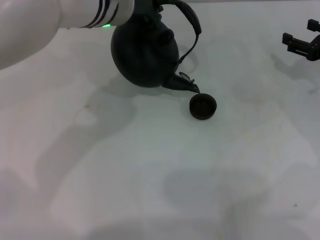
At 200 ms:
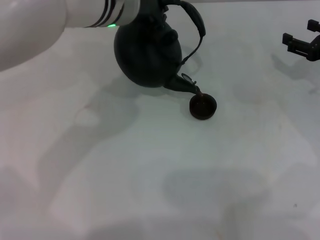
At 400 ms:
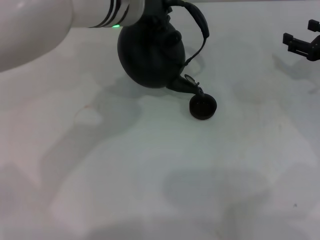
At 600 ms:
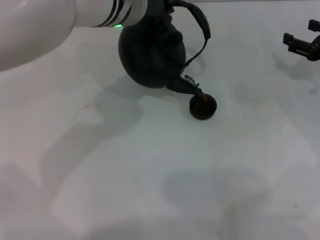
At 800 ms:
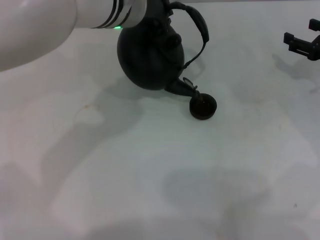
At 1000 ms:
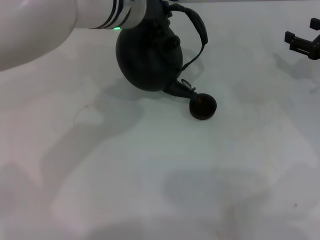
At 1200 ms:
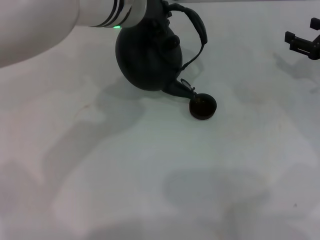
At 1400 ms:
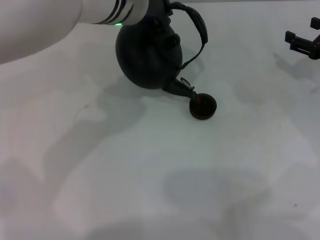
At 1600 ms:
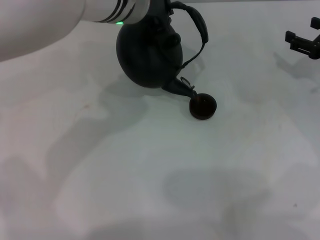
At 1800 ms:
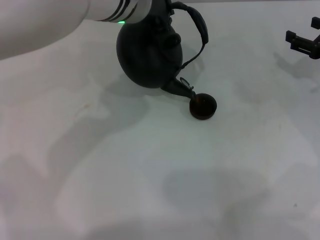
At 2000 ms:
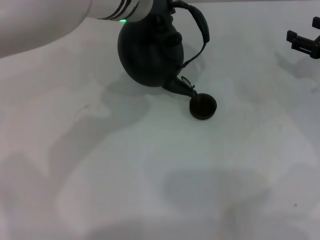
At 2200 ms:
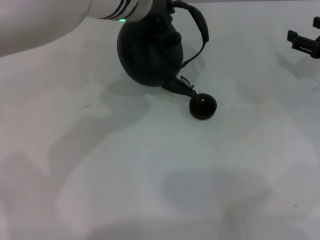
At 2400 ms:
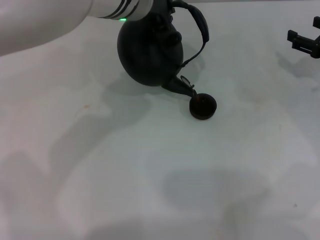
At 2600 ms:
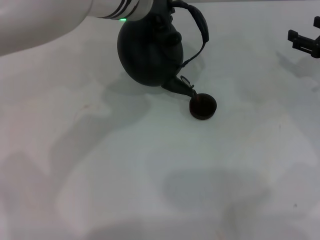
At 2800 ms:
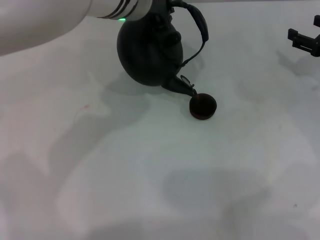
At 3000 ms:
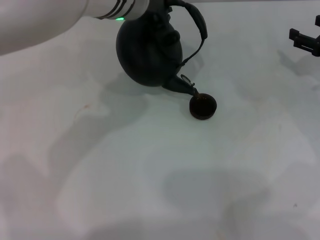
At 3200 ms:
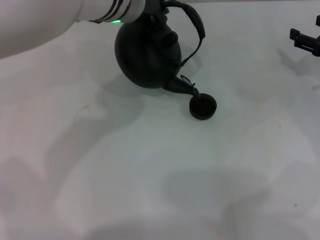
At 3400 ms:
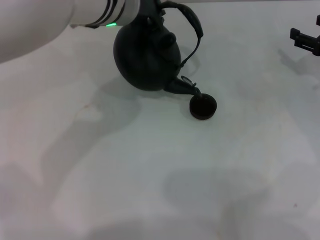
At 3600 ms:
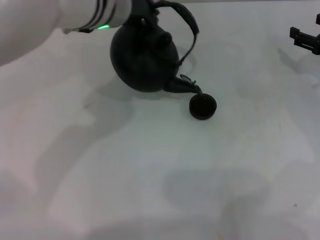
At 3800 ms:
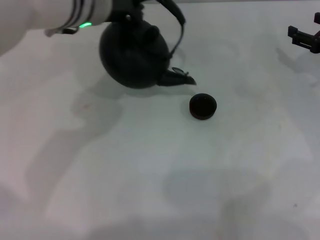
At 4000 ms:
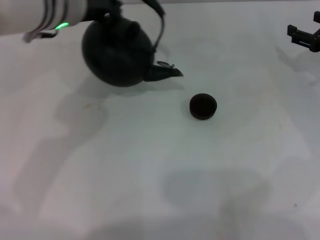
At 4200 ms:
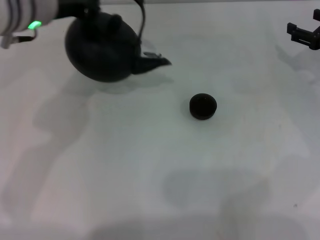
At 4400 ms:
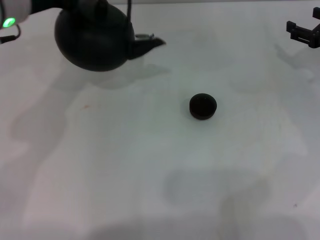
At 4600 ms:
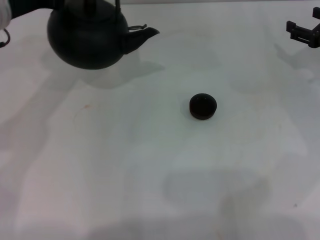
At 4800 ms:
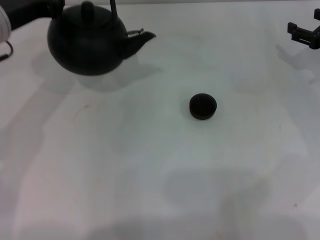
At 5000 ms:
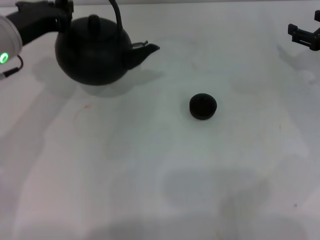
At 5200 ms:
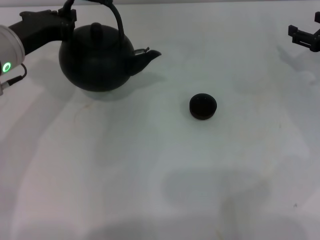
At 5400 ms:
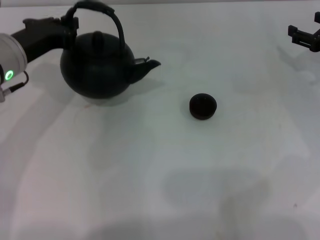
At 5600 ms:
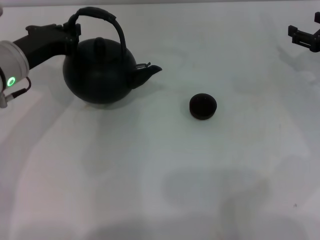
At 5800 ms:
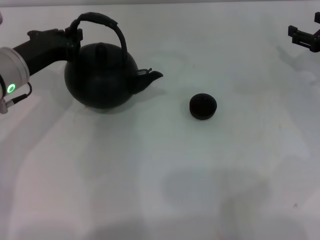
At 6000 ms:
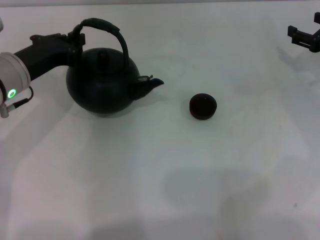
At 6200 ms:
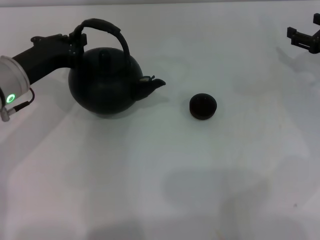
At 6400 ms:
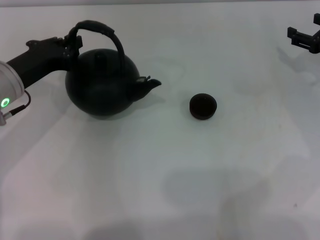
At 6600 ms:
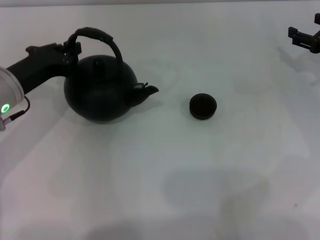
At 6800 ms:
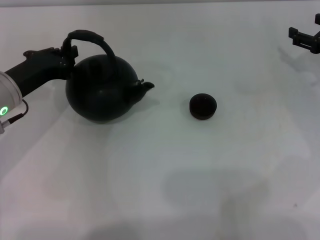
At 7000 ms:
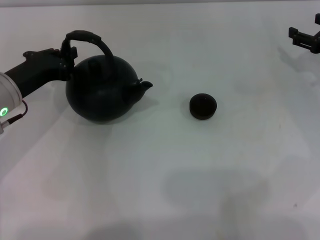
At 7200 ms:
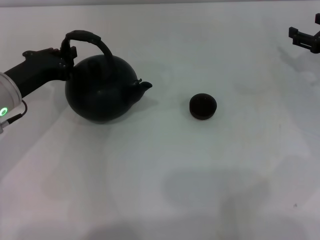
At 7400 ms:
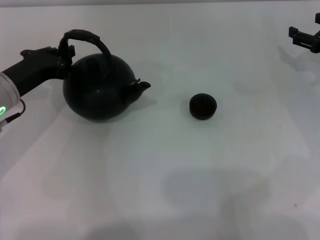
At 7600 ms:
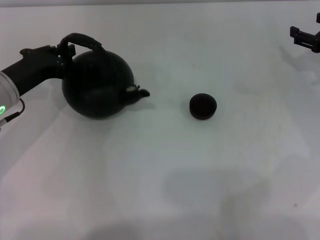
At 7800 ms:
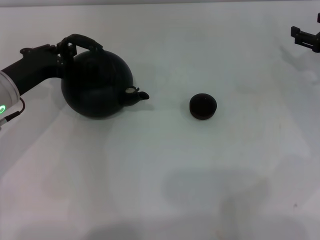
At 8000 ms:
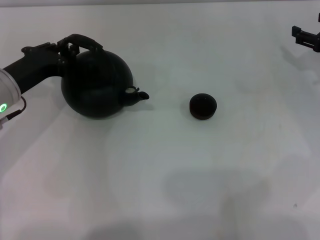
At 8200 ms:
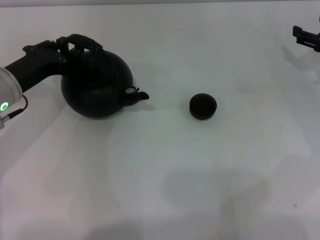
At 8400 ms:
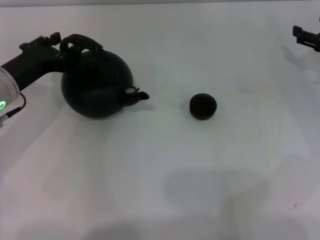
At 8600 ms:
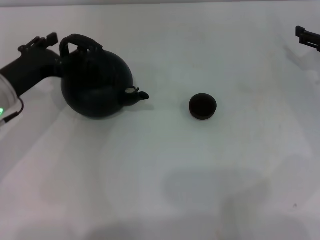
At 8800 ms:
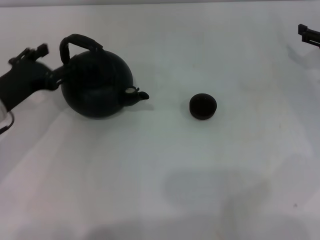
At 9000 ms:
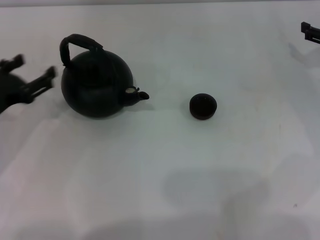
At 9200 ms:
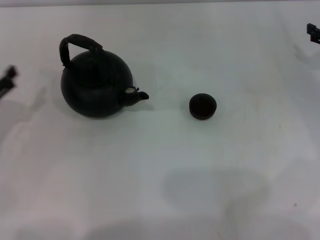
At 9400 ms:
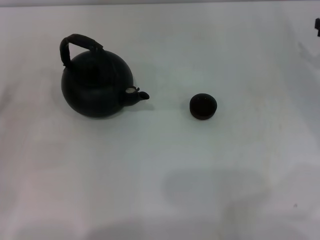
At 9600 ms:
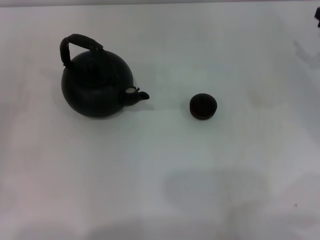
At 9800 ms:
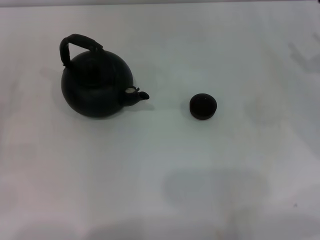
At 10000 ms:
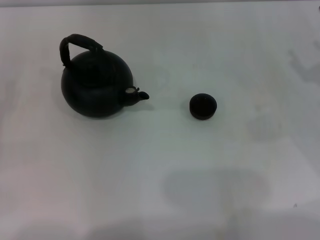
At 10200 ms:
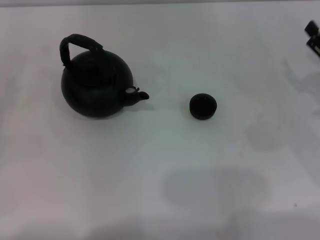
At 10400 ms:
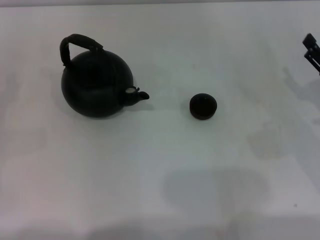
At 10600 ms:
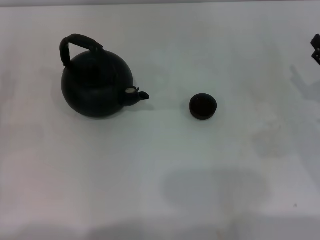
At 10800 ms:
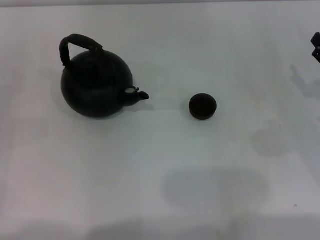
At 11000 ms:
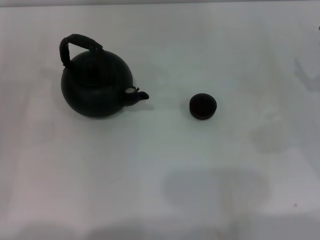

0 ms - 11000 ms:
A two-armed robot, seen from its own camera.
Task of the whole recording: Grasp the handle of the teapot with one hand and pour tea into the teacup.
Step, 0 ms - 3600 ms: Pour tea into the teacup with the left gripper.
Step, 3800 ms - 8600 ms: Put down the teapot with the left gripper.
0 ms - 3200 ms: The grippers stay close to where they were, moving slightly.
3200 ms - 4800 ms: The left gripper shifts about 15 cm to the left.
4800 ms - 6200 ms: The left gripper heads downward, covering roughly 10 cm.
6200 ms - 7800 ms: There are only small adjustments of the grippers.
7800 ms - 9400 ms: The left gripper goes approximately 15 cm to the left and backward, and opens its fingers.

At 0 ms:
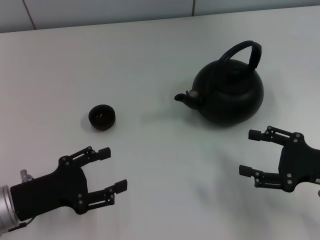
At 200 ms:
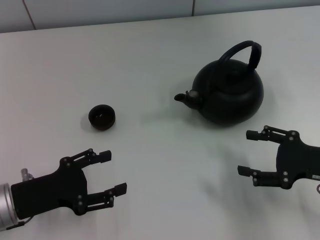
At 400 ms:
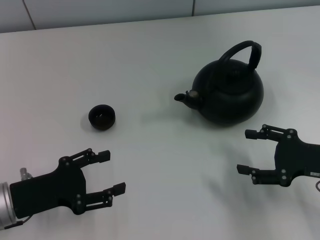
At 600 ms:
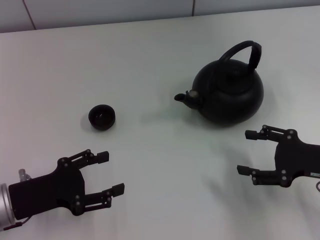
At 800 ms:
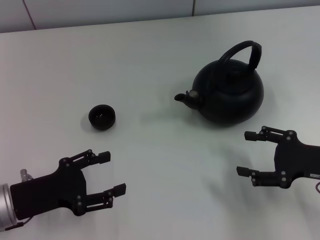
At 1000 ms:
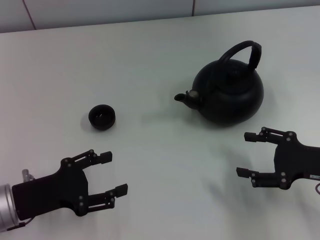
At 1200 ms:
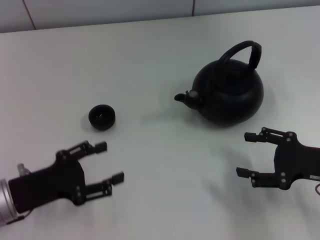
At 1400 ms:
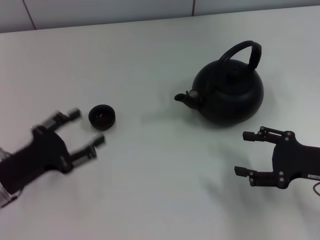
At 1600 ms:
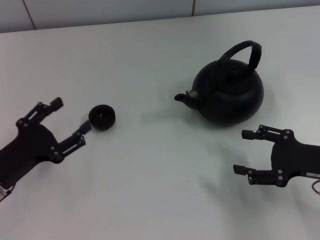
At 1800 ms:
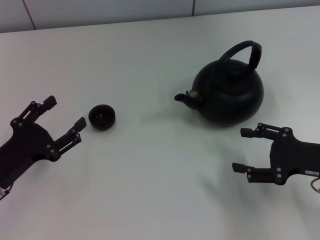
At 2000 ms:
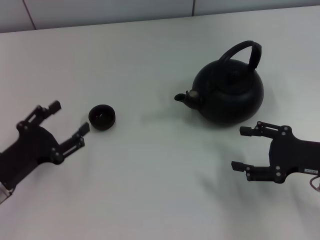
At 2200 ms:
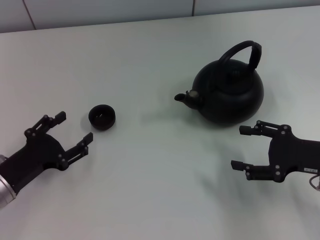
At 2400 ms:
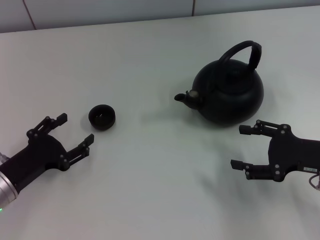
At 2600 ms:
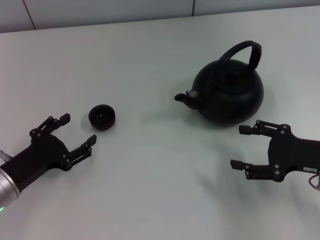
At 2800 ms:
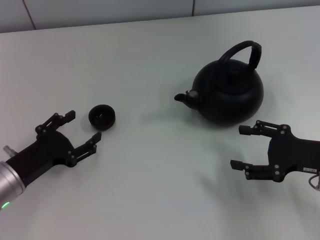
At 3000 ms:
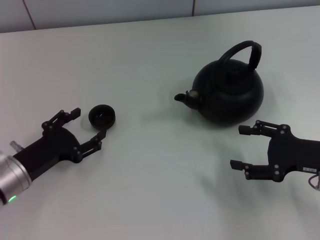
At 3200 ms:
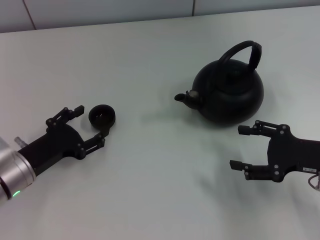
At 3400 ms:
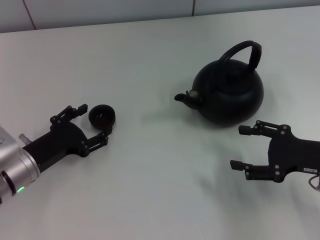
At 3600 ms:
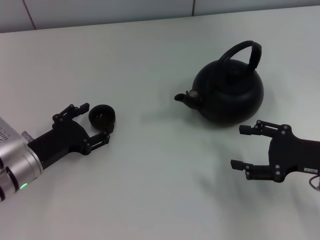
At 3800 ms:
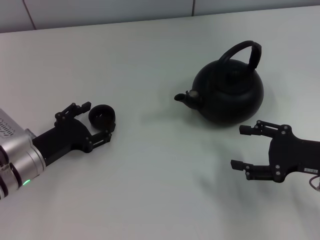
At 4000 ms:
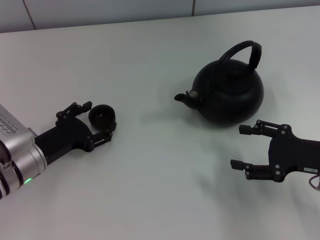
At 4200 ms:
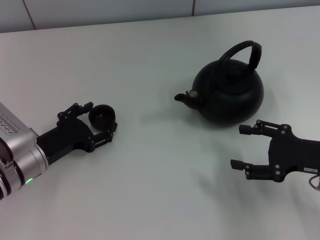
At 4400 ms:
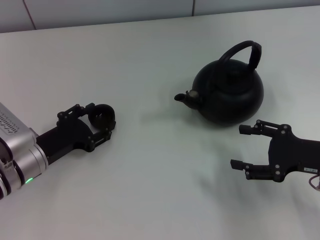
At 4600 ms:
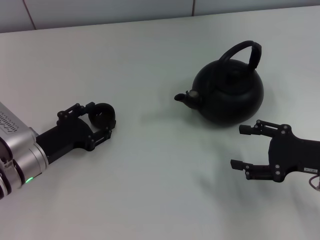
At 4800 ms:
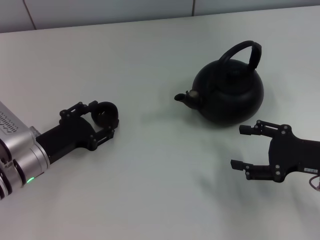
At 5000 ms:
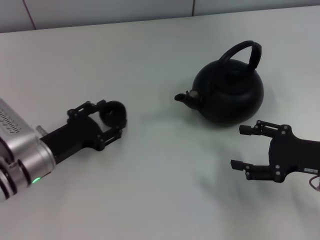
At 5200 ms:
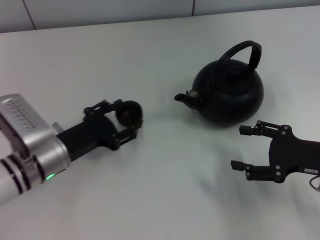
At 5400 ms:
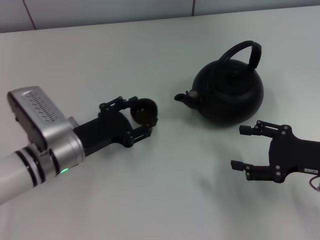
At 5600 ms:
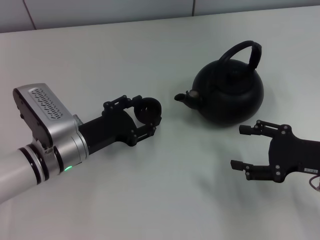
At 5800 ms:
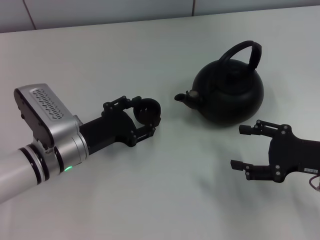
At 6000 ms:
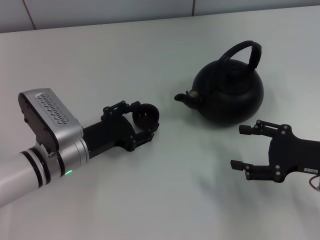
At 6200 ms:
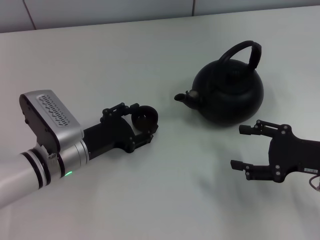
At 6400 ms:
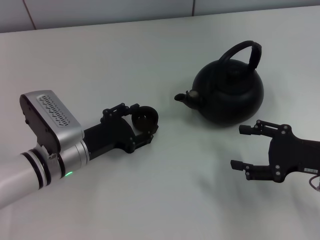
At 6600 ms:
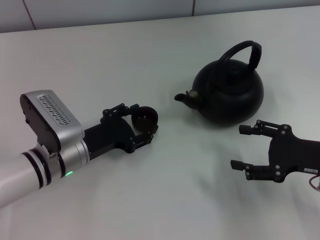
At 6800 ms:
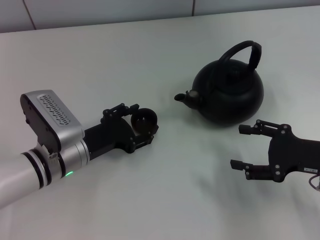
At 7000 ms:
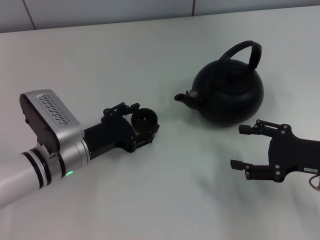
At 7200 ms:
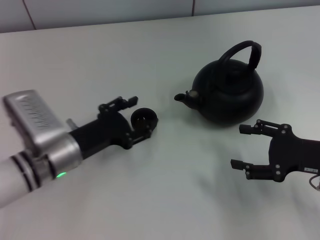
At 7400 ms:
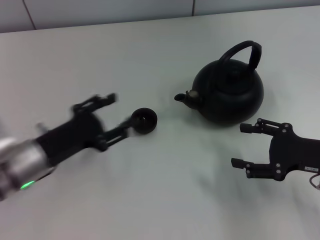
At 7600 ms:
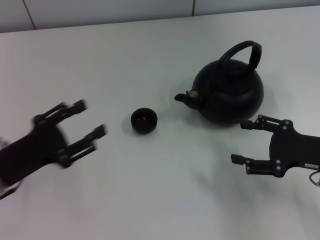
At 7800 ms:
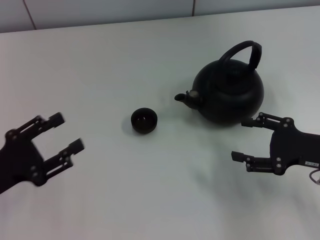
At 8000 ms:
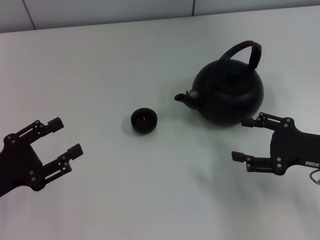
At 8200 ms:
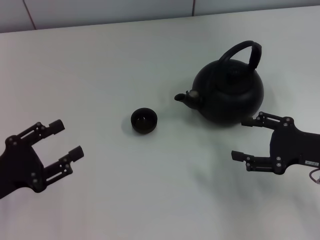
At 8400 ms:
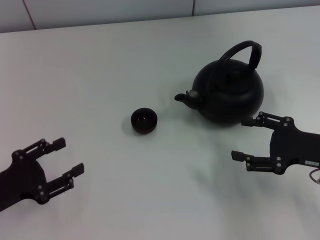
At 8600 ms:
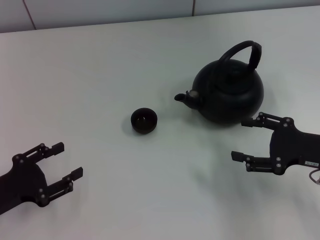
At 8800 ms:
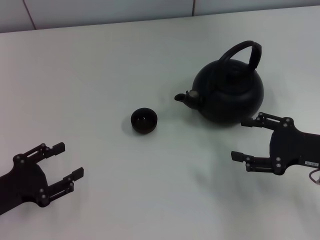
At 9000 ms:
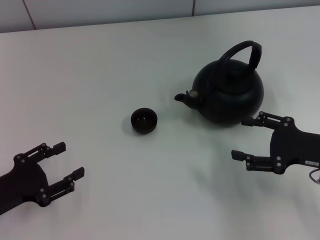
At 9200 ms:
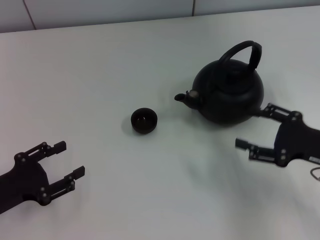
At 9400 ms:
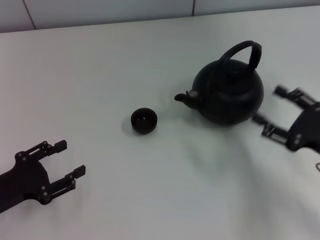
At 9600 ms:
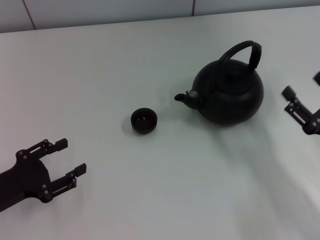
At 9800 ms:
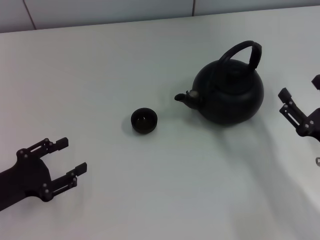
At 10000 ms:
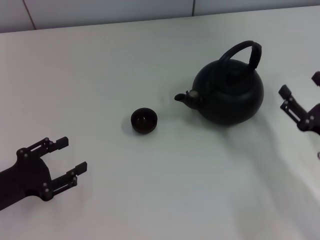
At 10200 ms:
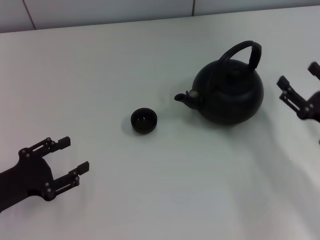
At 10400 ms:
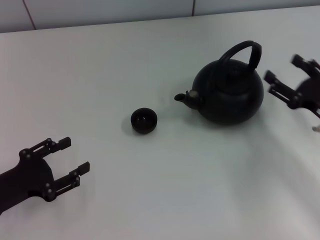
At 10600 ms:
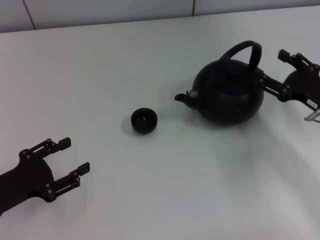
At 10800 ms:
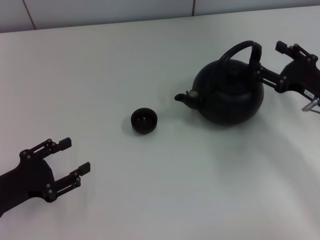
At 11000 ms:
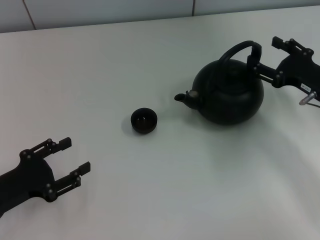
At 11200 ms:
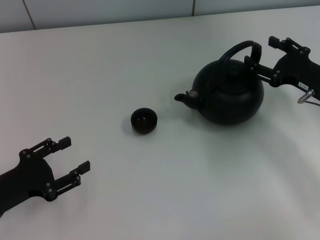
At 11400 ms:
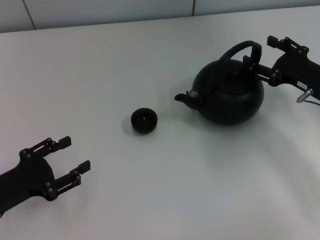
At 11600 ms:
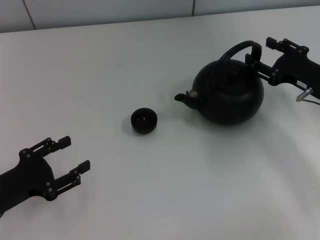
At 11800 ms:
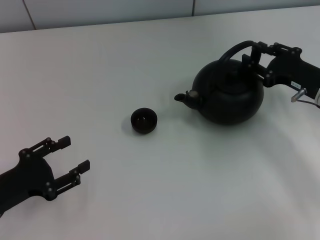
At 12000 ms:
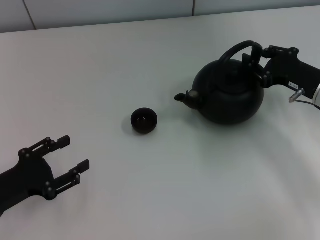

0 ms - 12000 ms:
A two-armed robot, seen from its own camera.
Task of the whole recording: Grasp the handle of the teapot with one hand and pour tea into the teacup.
Step, 0 ms - 4800 ms: Pick up the teacup with the left gripper.
Step, 5000 ms - 7200 ms: Place the teacup in the center of view with the left gripper.
1600 ms - 3000 ms: The grippers stay close to where they were, moving slightly.
3000 ms - 4400 ms: The grippers make only small movements.
4400 ms - 6000 ms: The left gripper moves to the right, roughly 5 cm, and closes its fingers.
6000 ms - 7600 ms: The left gripper goes roughly 10 cm to the left and backward.
7600 ms - 9000 ms: The left gripper changes place by roughly 5 cm.
10400 ms - 12000 ms: The right gripper heads forward, covering roughly 5 cm, and closes up.
